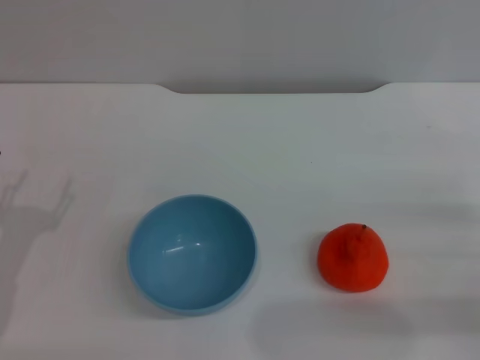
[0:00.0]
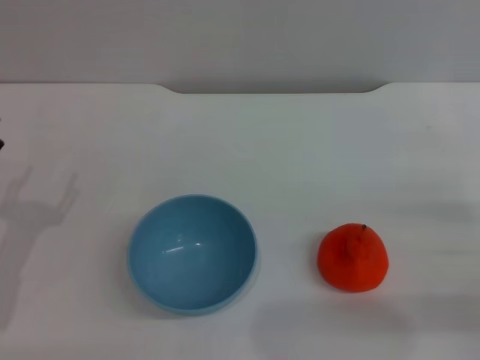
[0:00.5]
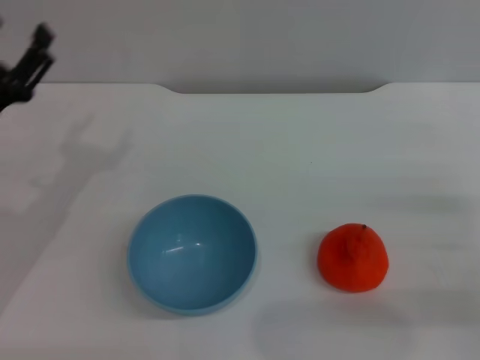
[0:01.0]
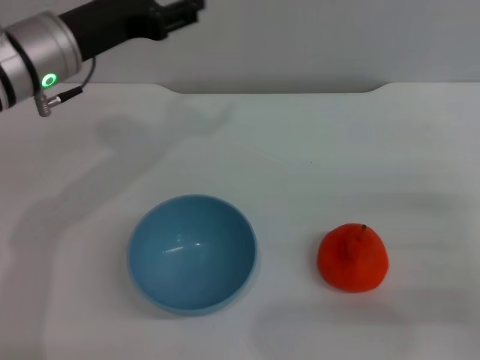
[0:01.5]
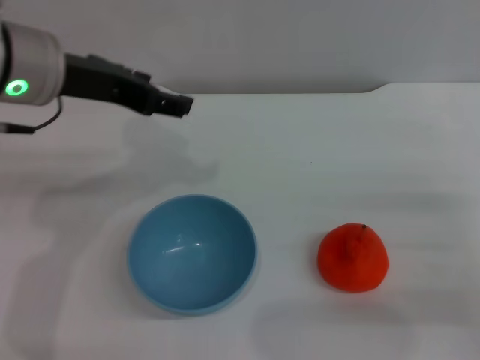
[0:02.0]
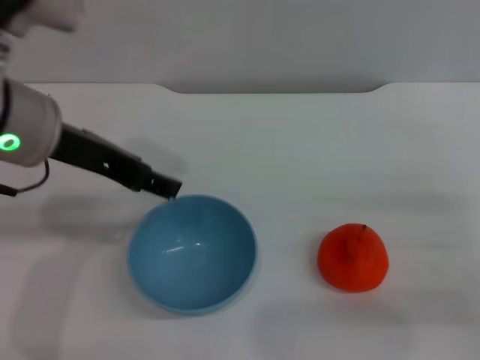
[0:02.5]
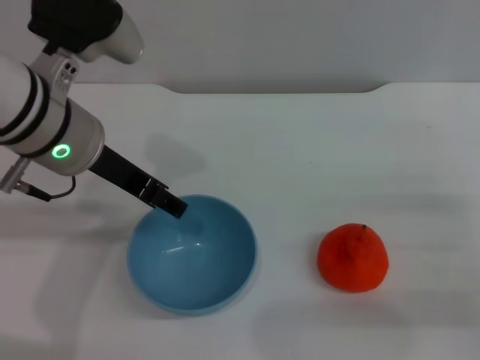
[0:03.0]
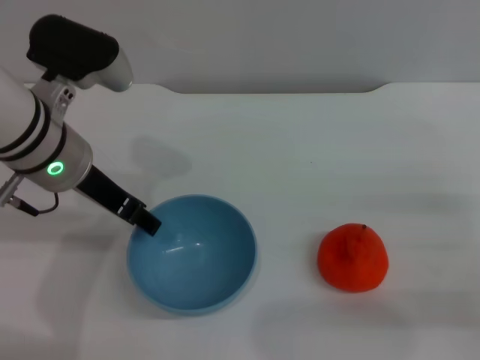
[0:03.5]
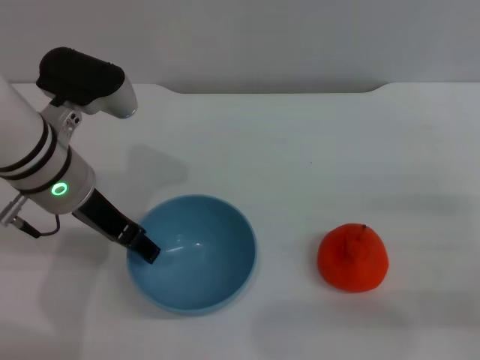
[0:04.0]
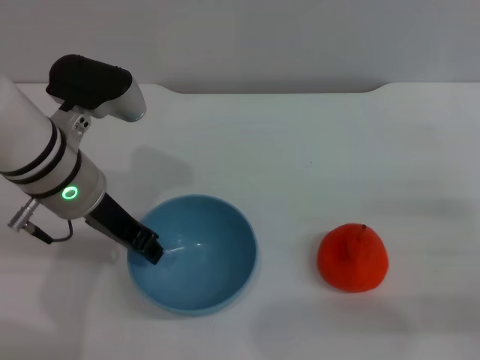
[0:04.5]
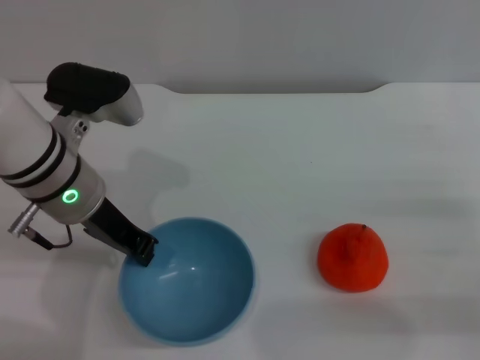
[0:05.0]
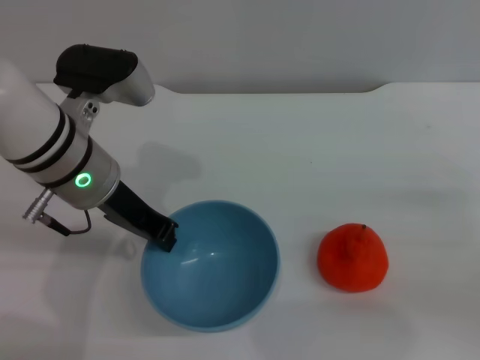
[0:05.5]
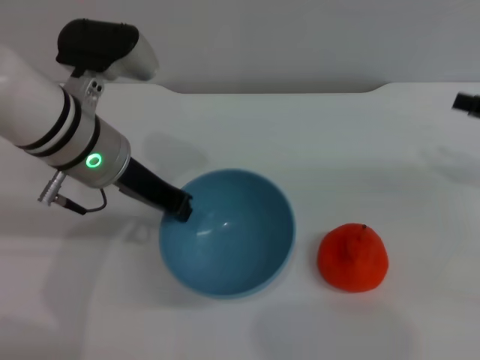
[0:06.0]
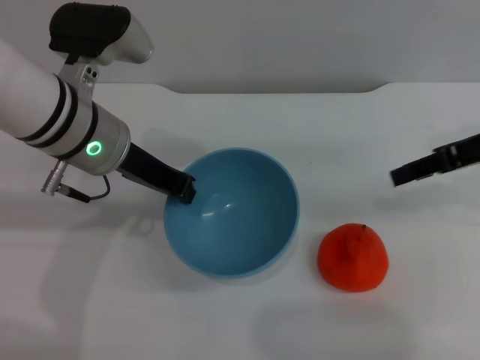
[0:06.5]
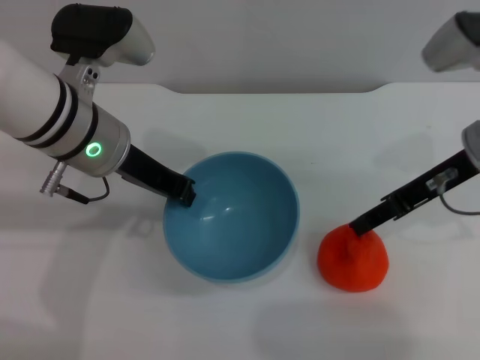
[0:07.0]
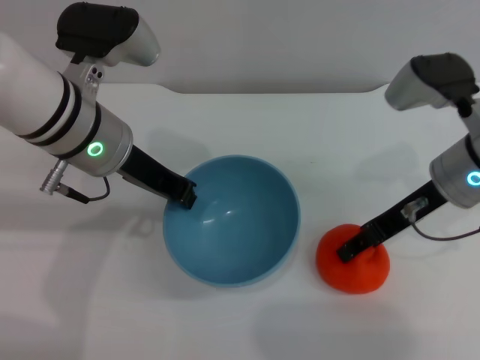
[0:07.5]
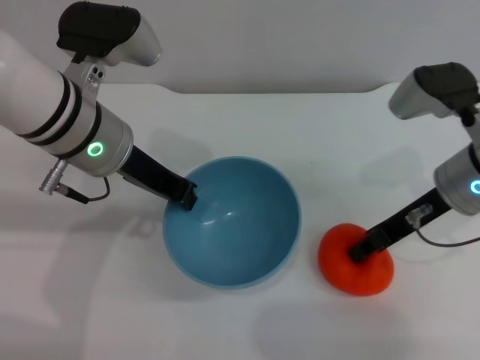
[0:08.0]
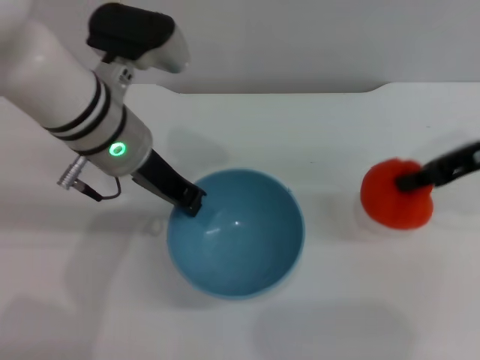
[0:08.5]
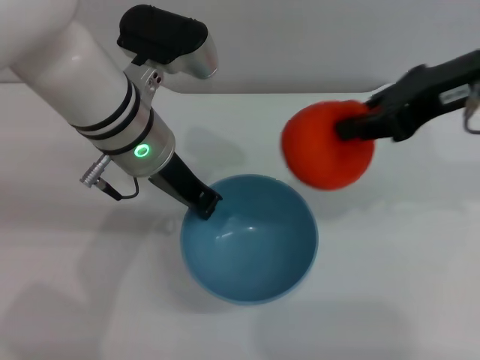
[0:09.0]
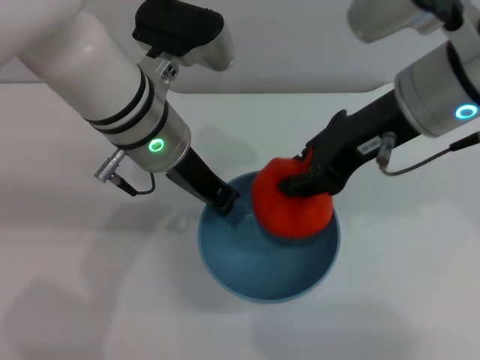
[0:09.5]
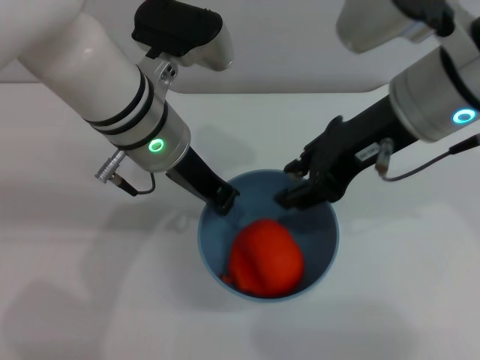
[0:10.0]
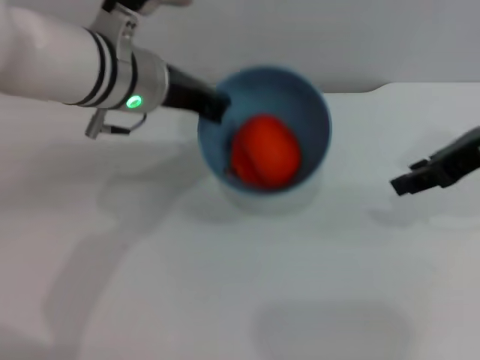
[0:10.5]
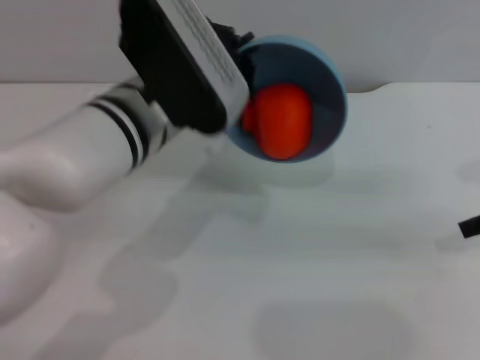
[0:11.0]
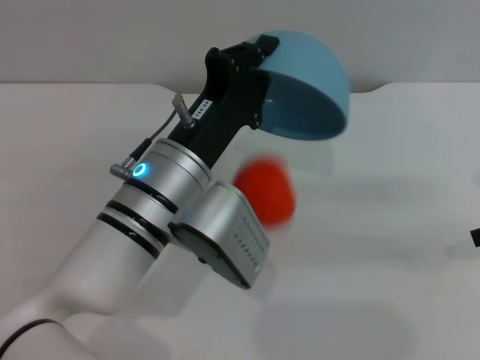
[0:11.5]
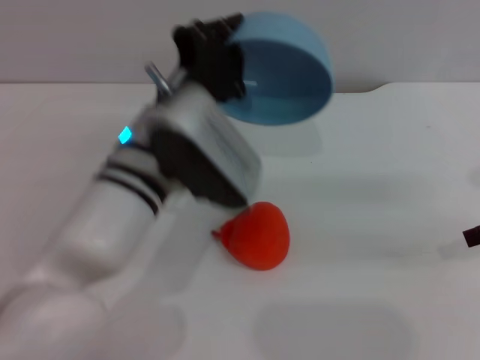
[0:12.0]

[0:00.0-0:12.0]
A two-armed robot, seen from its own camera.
Task of the whole recording: put the orange into the blue bowl and pour it out repeatedly.
Step, 0:00.0 to 0:06.5: Pick up the bowl with the left gripper.
Step, 0:07.0 to 0:08.0: Pick up the orange with the right gripper.
Step, 0:09.0 to 0:10.0: Place the orange into the bowl.
Step, 0:10.5 to 0:11.5: Pour the orange out of the bowl.
0:00.0 to 0:02.0: The left gripper moves upward, forward and to the right, approximately 25 cm.
0:02.0 to 0:04.0: The left gripper goes roughly 10 cm downward.
0:04.0 to 0:06.0: The right gripper shifts about 15 cm upward and forward. Meanwhile the left gripper closes its fingers.
0:06.0 to 0:08.0: The right gripper travels to the left by about 15 cm, and closes.
0:08.0 to 0:10.0: The left gripper heads to the right, covering roughly 5 cm. The right gripper moves upward and to the left, roughly 15 cm.
0:10.0 to 0:12.0: The right gripper travels to the right by roughly 20 cm, while the left gripper moves backward, about 5 cm.

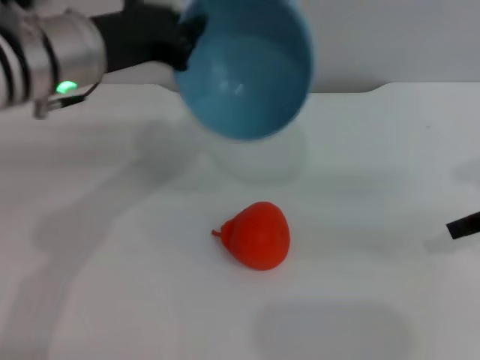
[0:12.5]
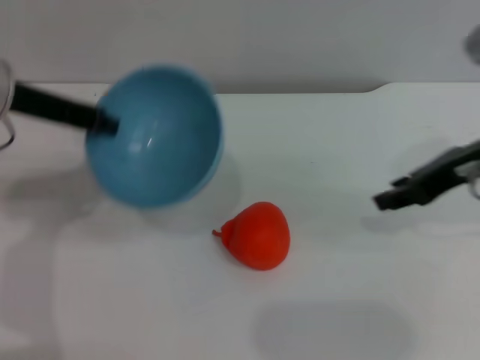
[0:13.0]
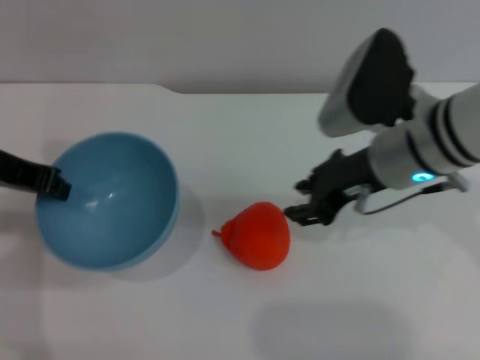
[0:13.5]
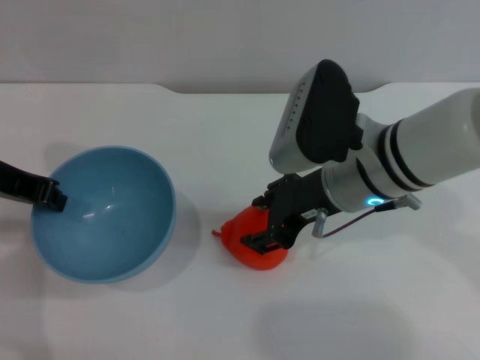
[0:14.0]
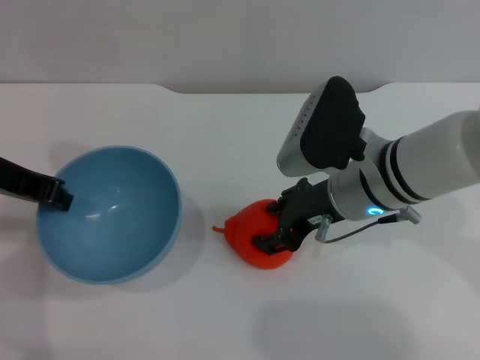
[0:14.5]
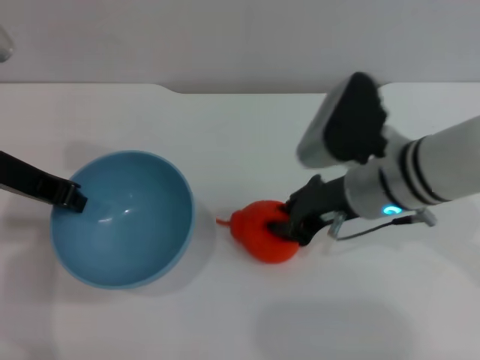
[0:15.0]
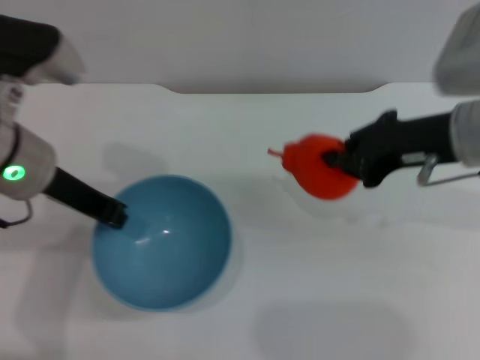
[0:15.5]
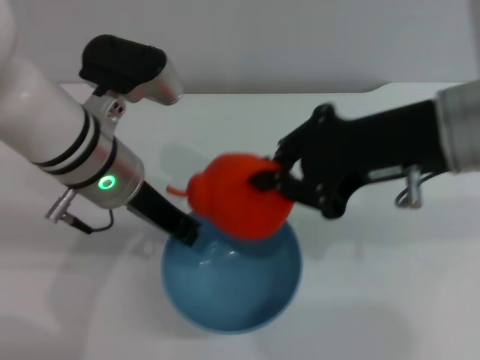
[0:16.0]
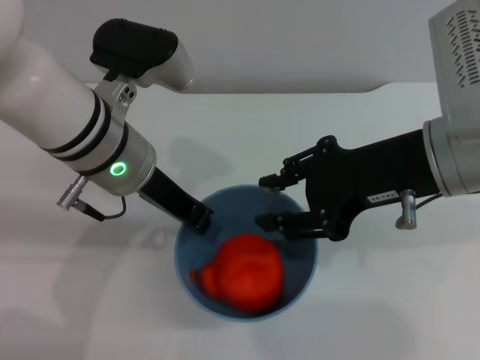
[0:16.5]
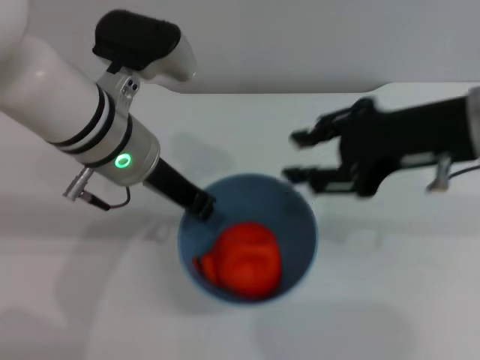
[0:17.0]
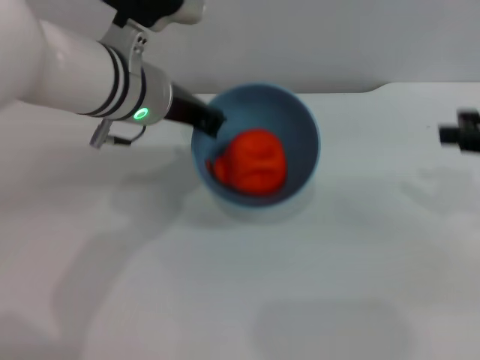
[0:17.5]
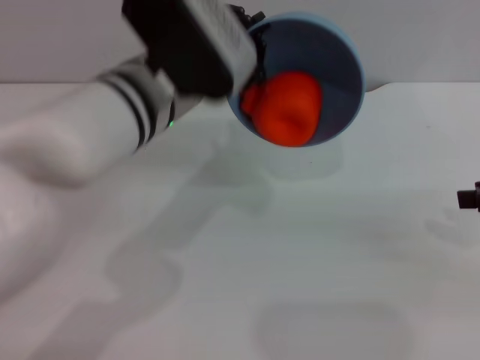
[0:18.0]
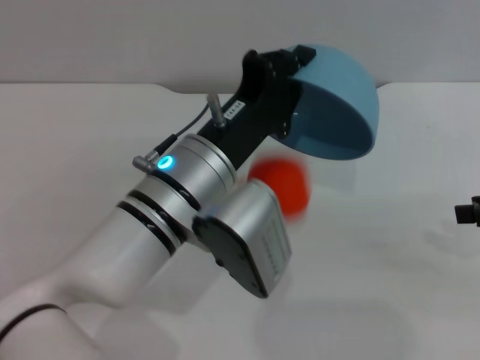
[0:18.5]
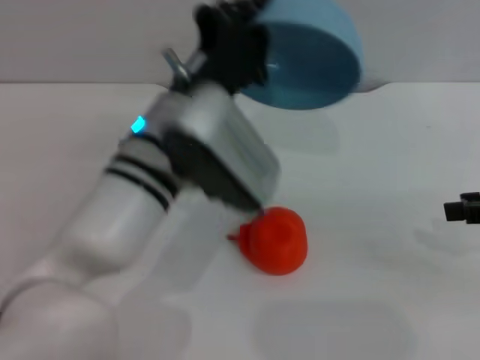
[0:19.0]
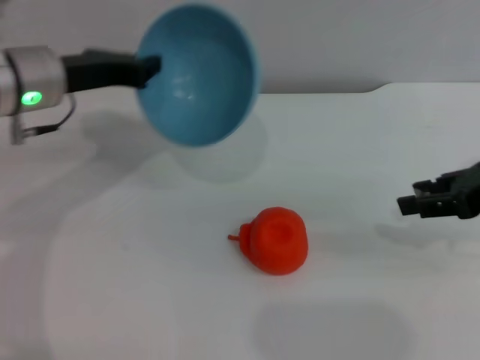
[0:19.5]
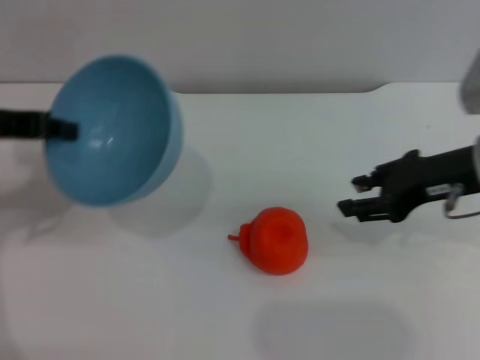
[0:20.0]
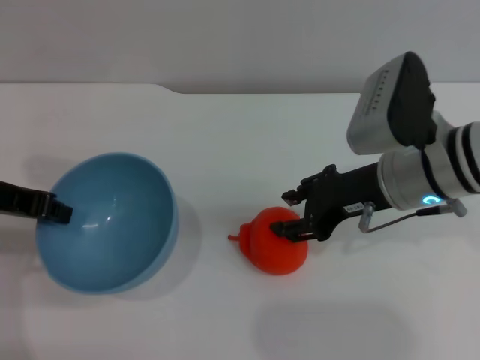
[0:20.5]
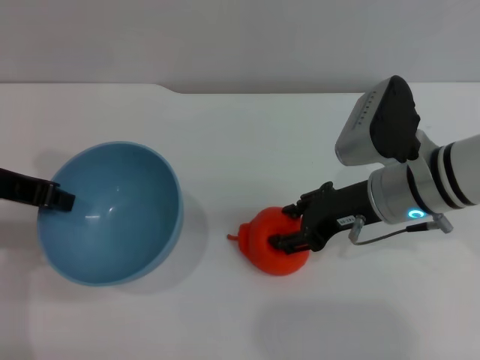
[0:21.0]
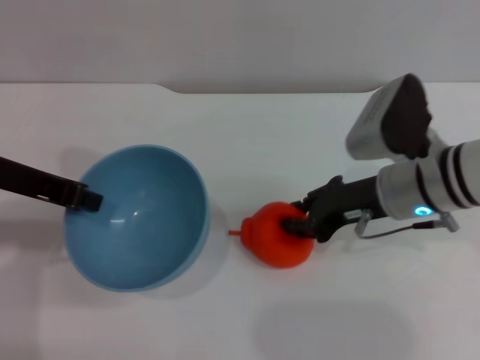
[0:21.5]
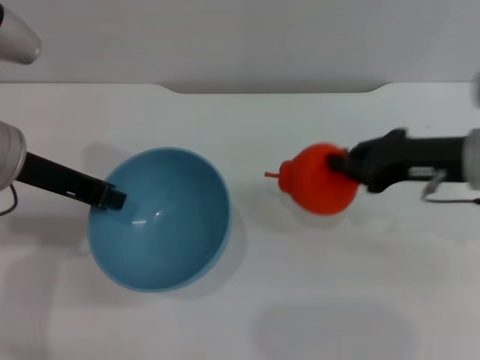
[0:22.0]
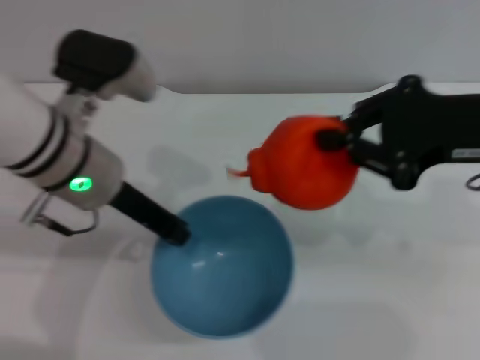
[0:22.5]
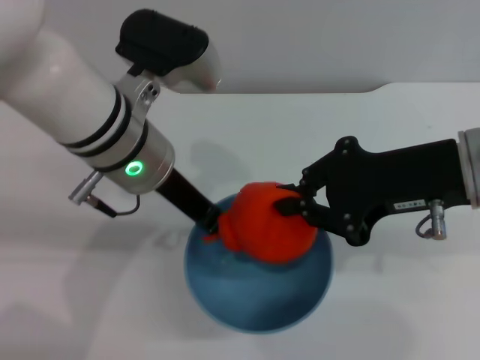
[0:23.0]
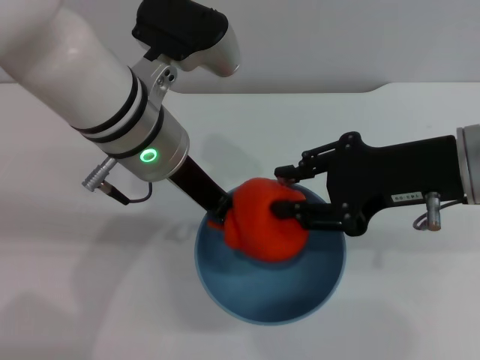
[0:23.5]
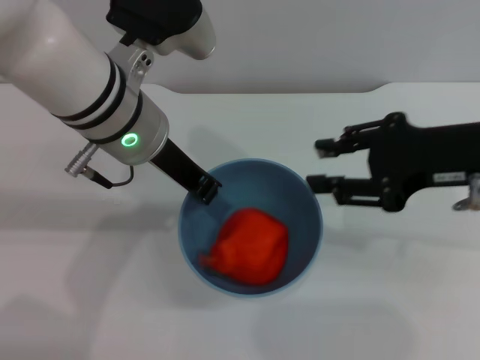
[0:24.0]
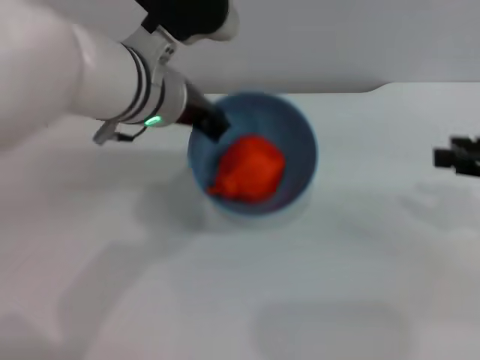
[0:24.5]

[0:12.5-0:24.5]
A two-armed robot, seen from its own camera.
Task of the whole recording: put the orange into the blue bowl and pour it out repeatedly.
Step, 0:12.5 to 0:15.0: Pick up the orange with the right gripper.
Step, 0:16.0 to 0:17.0: Place the orange into the bowl.
Step, 0:17.5 to 0:18.5: Pour the orange out of the bowl.
Step, 0:19.0 to 0:21.5: Pick up the orange with the right gripper.
Step, 0:22.0 to 0:23.5: Place the orange into the bowl.
0:12.5 to 0:14.5: The left gripper is displaced to the left by roughly 10 cm. Meanwhile the right gripper heads to the left and downward, covering some 20 cm.
0:14.5 to 0:16.5: The left gripper moves to the right, about 15 cm. Meanwhile the right gripper shifts approximately 10 cm upward and to the right, and closes its fingers.
0:16.5 to 0:18.5: The left gripper shifts approximately 10 cm backward, to the right and downward; the right gripper is displaced to the right by about 20 cm, and opens.
0:18.5 to 0:20.5: Both grippers travel together to the left, approximately 20 cm.
0:20.5 to 0:22.5: The left gripper shifts roughly 15 cm to the right. Meanwhile the right gripper is displaced upward and to the right by some 10 cm, and closes up.
0:22.5 to 0:24.5: The right gripper moves to the right, roughly 10 cm, and opens; the left gripper is displaced to the right by roughly 5 cm.

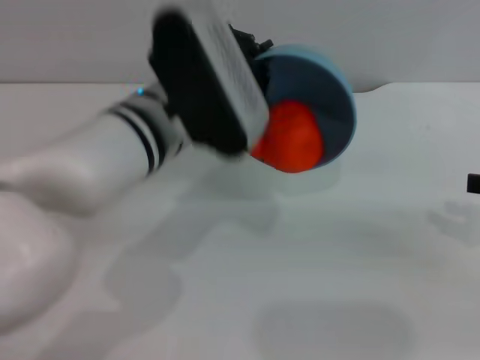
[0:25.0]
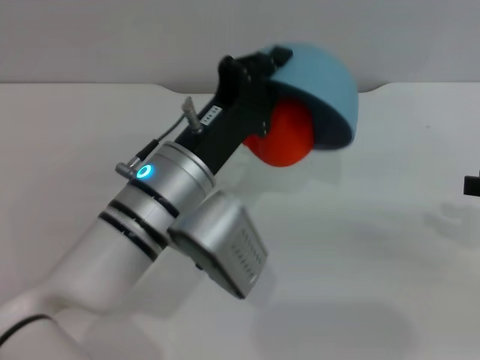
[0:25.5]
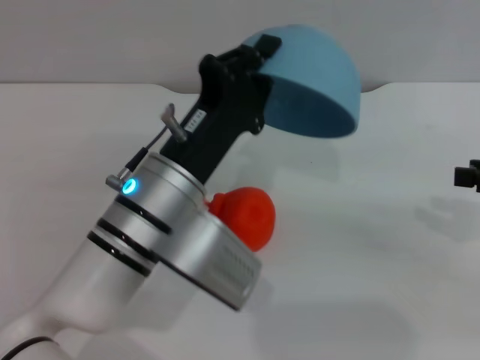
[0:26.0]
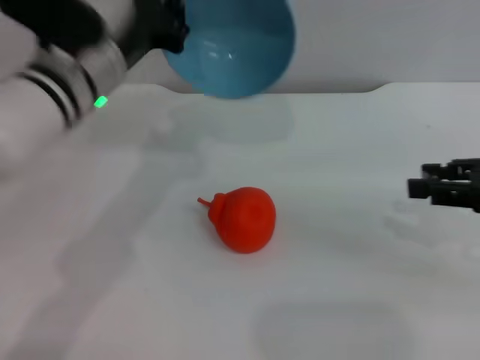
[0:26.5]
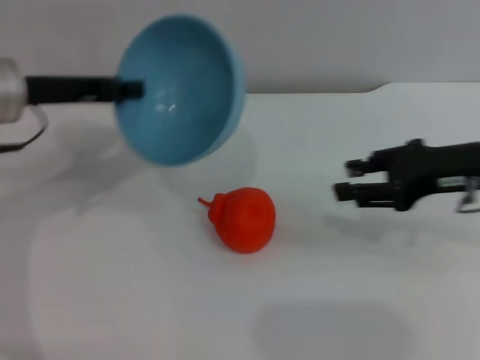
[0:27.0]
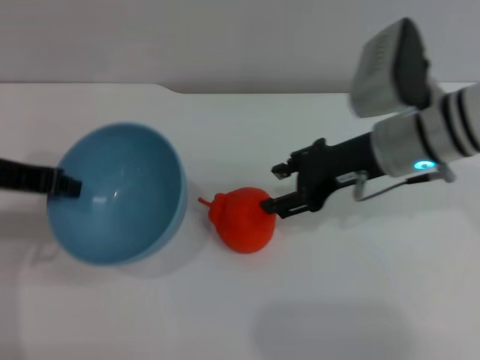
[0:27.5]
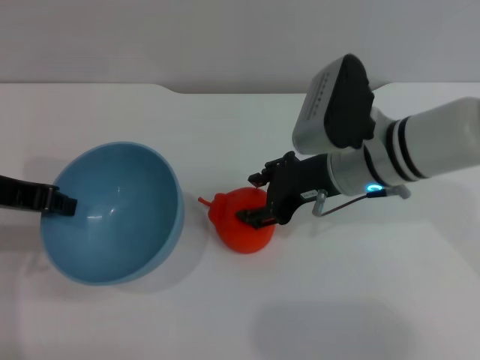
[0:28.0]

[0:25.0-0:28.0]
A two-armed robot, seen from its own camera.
Task of the whole recording: put the orange into the blue bowl and pour it out repeatedly.
Step, 0:25.0 to 0:26.0: Pour the orange out of the bowl.
0:25.0 to 0:26.5: The left gripper moves to the left, some 5 cm. The right gripper shifts by roughly 5 cm.
0:26.5 to 0:28.0: The left gripper travels to the left and backward by approximately 15 cm; the right gripper goes approximately 20 cm to the left and forward.
